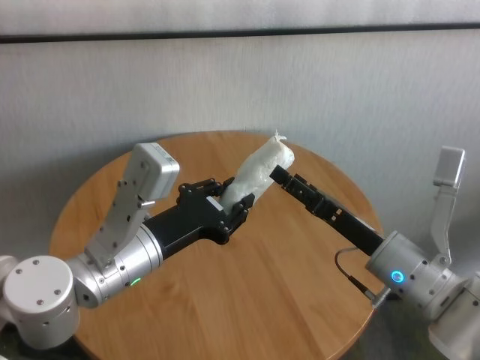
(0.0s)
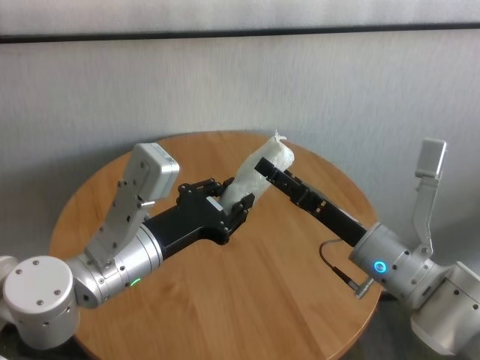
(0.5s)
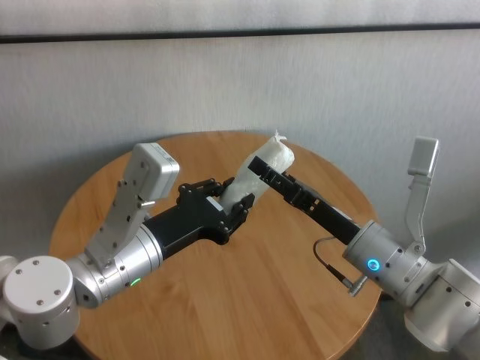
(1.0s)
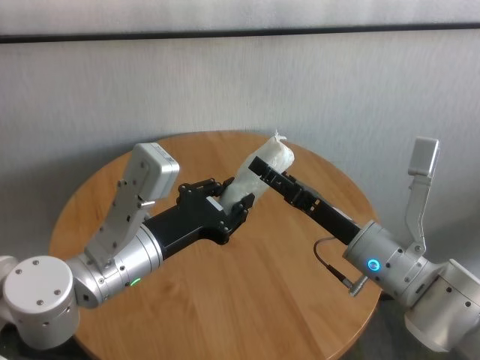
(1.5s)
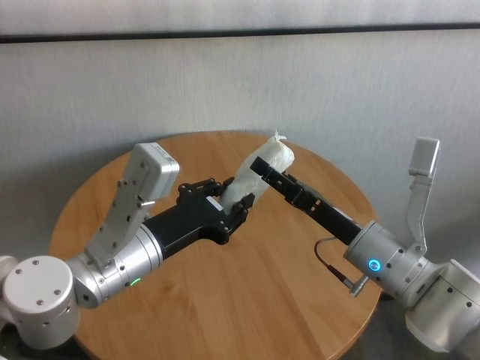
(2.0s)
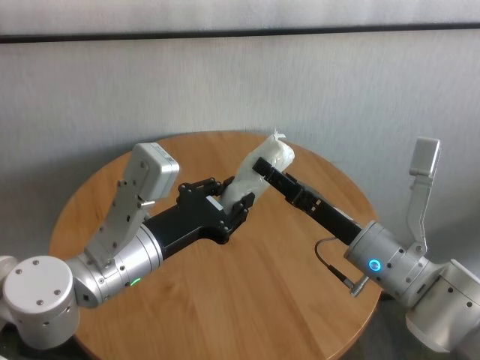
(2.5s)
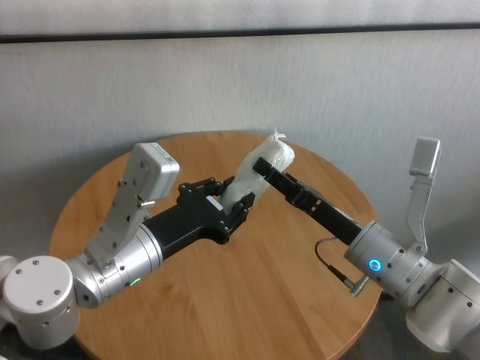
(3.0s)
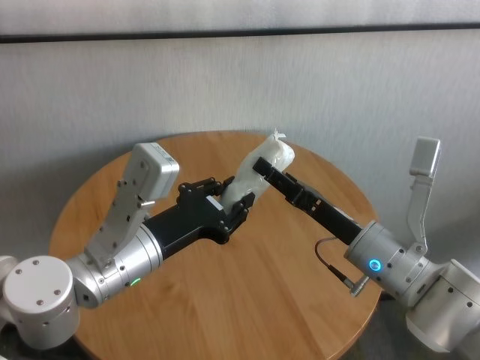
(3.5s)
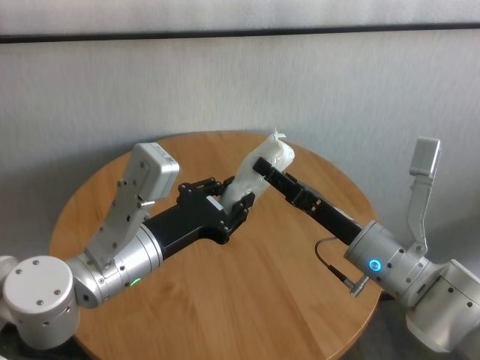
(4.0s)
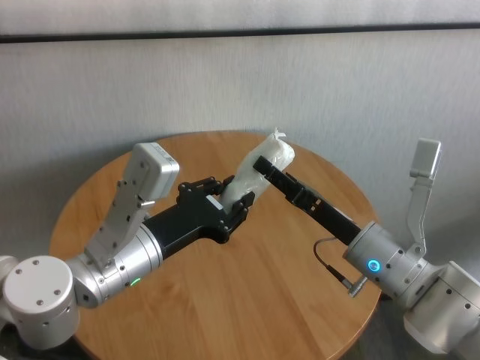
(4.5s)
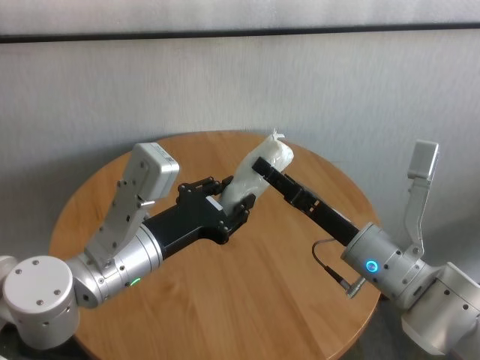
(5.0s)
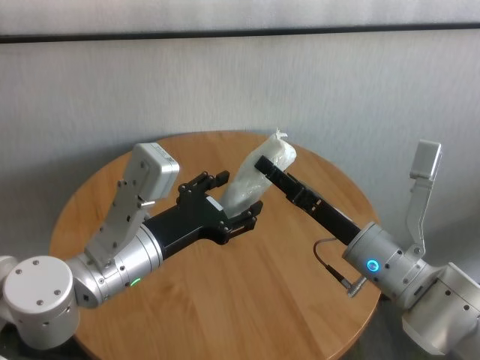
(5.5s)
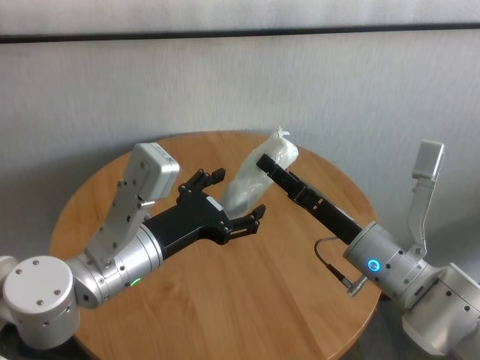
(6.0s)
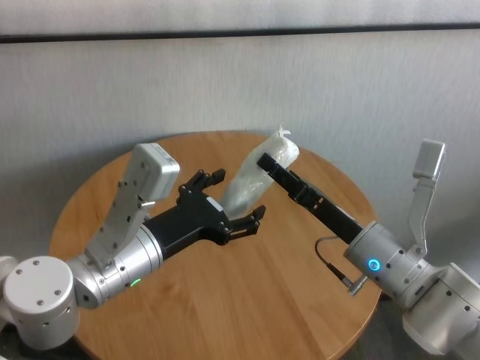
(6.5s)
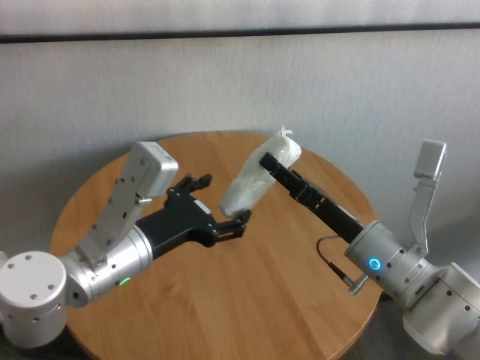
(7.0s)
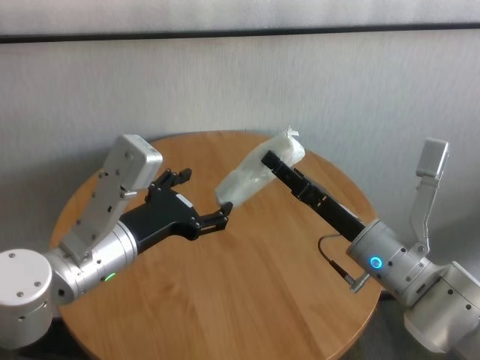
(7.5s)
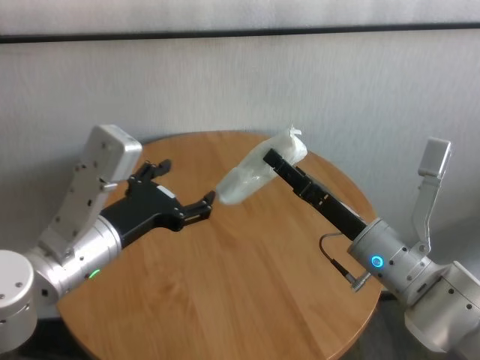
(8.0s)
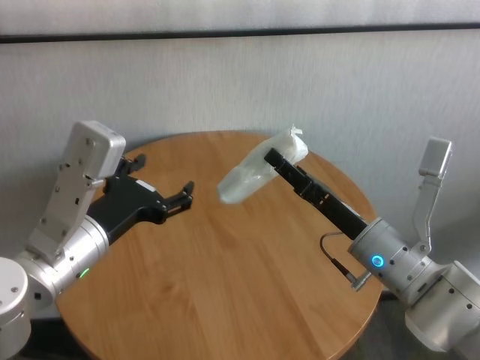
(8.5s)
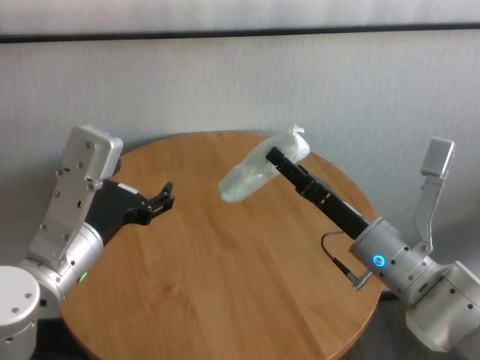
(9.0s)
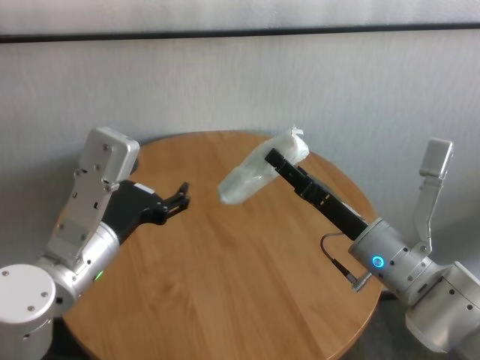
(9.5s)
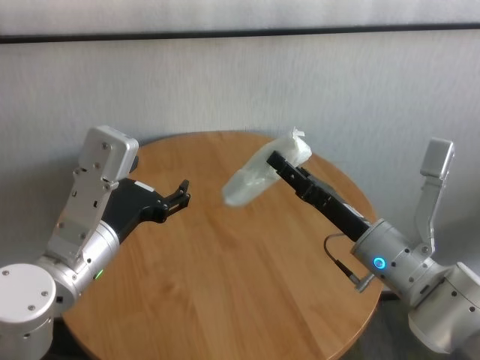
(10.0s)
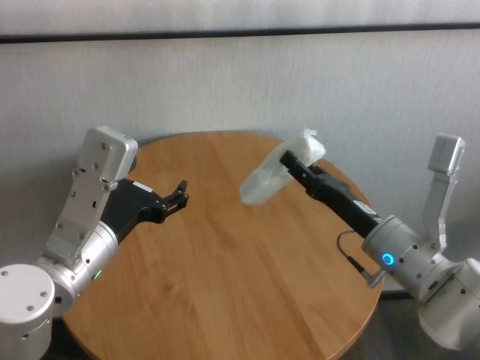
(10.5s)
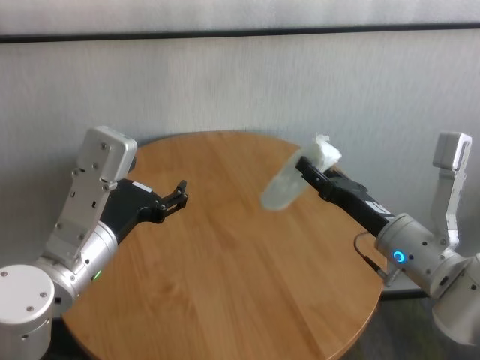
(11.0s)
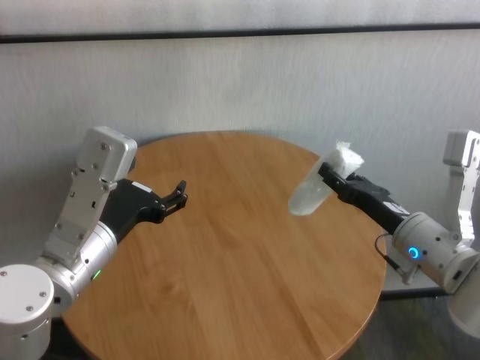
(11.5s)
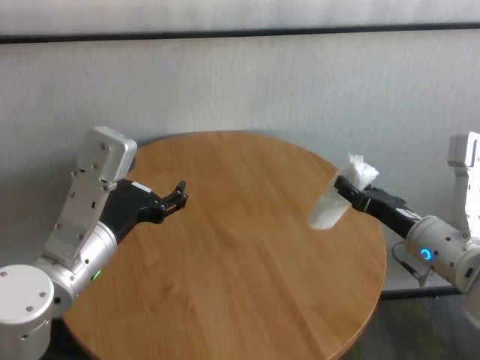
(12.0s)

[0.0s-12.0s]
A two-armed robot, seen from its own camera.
Task of the whole recording: One hand took the sandbag from the other hand and placed it on the table.
Step, 0.0s to 7.5s: Pass the paper ball to the right gripper.

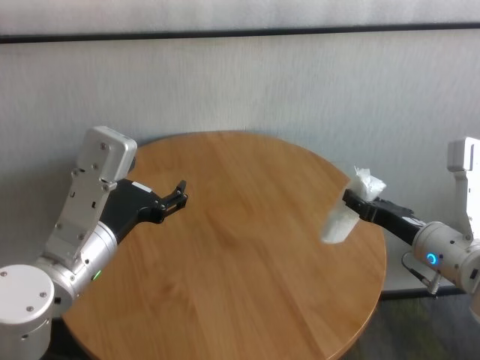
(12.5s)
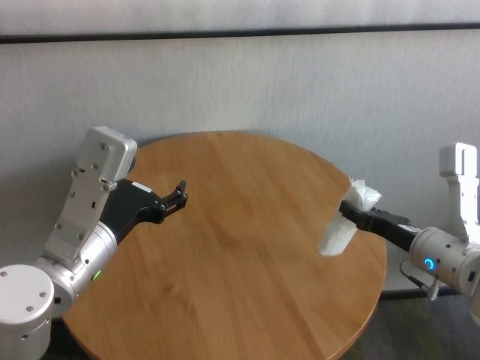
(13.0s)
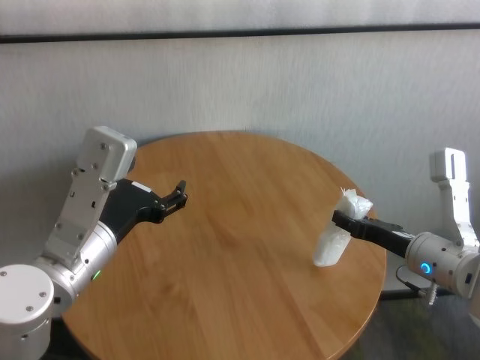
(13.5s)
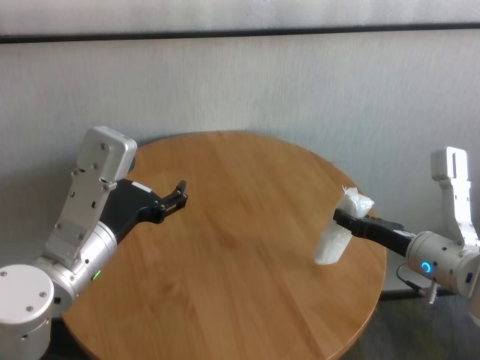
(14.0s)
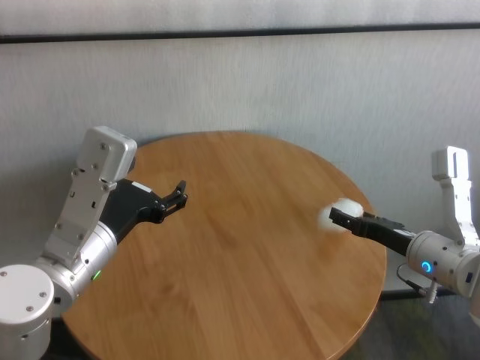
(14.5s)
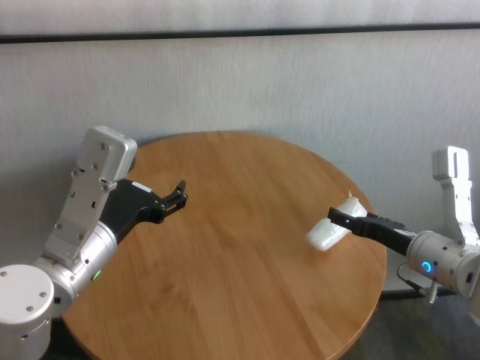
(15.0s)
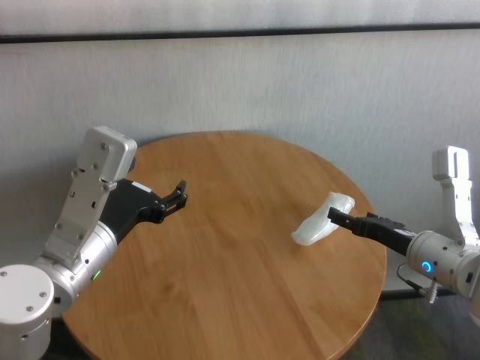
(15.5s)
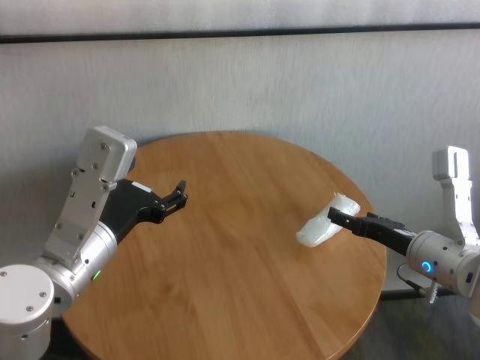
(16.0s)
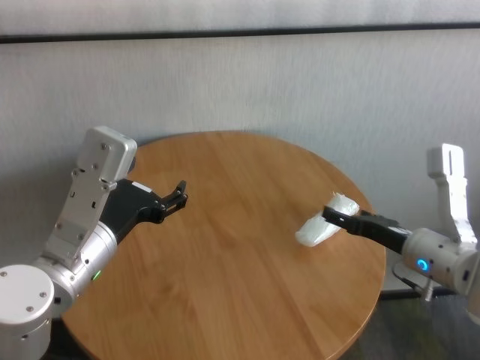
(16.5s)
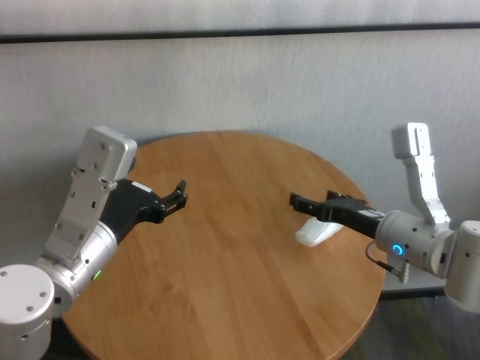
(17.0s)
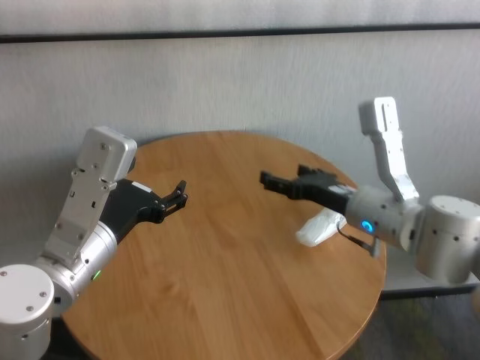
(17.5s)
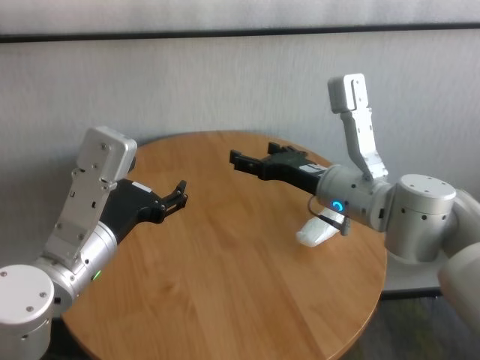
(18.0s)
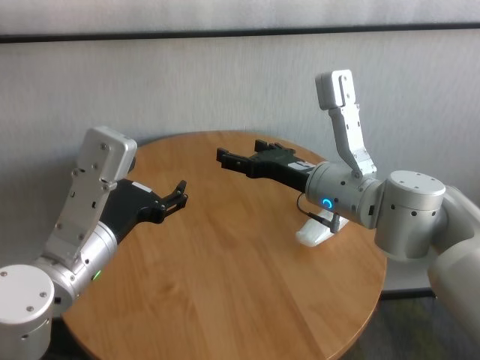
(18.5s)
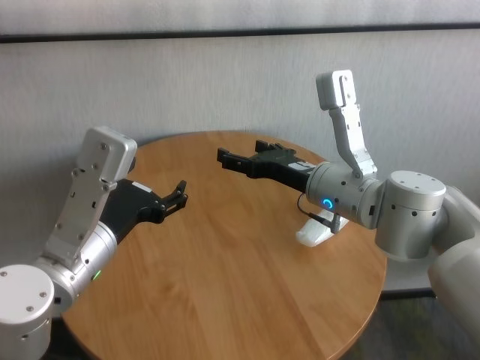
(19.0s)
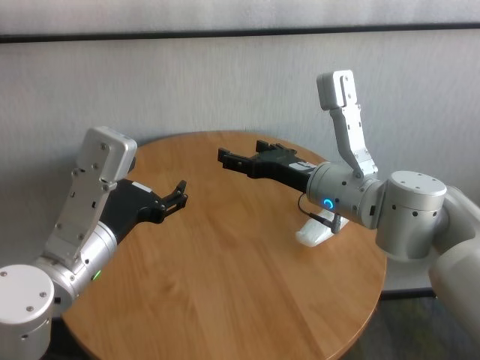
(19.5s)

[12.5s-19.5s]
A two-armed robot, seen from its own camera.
Task of the whole recording: One hand took the sandbag from the other hand and placed it on the table.
Step, 12.5s to 15.0s: Place the paper ball on the table with right gripper.

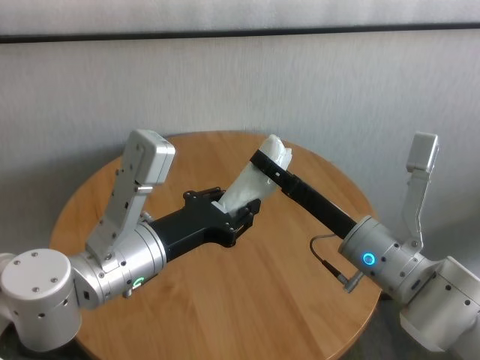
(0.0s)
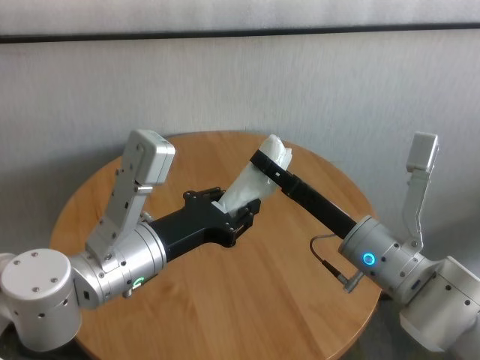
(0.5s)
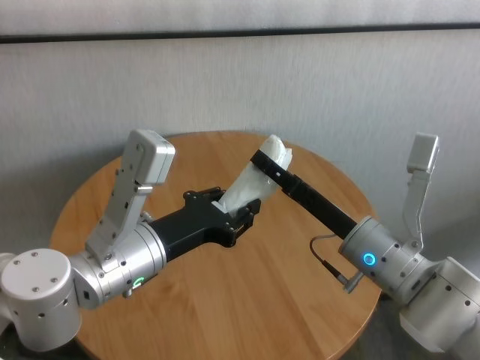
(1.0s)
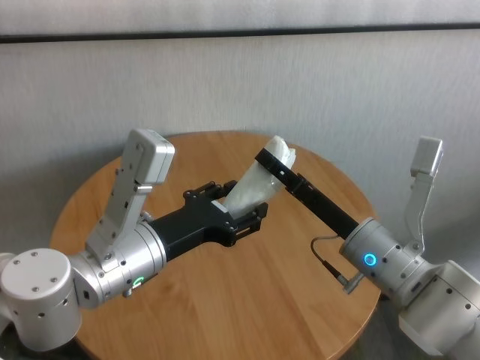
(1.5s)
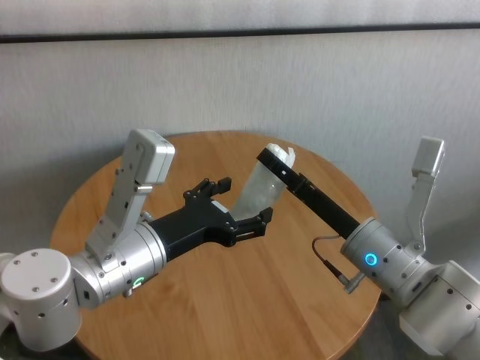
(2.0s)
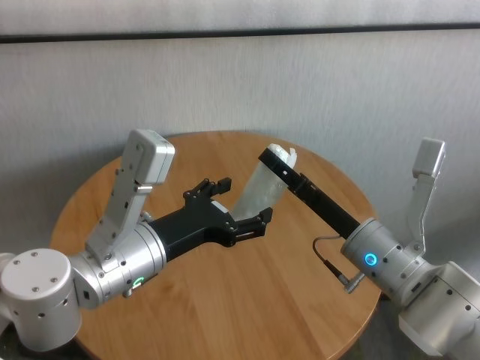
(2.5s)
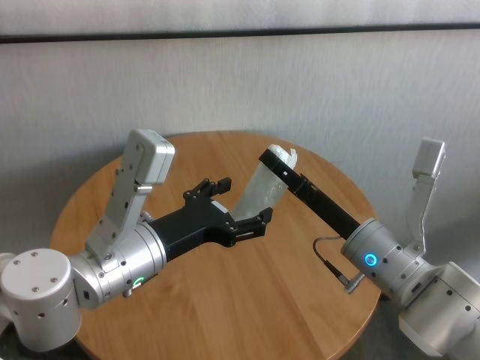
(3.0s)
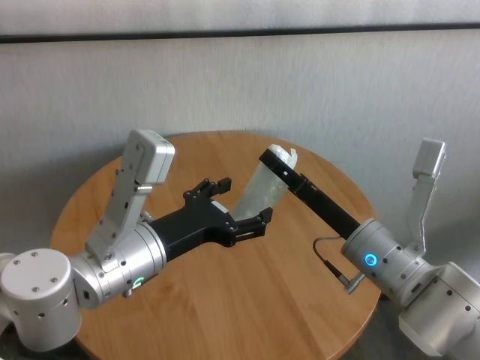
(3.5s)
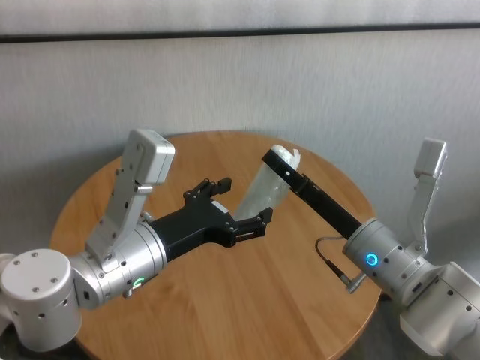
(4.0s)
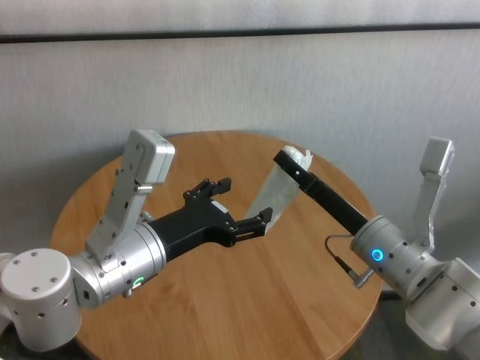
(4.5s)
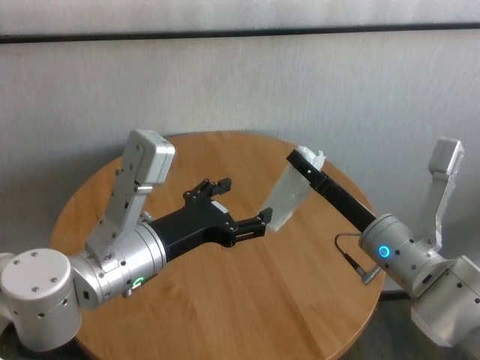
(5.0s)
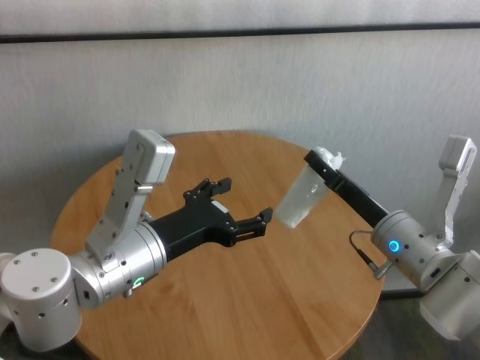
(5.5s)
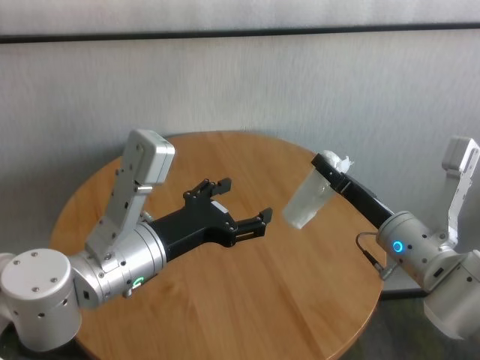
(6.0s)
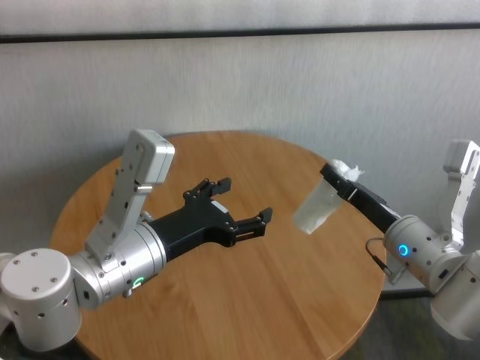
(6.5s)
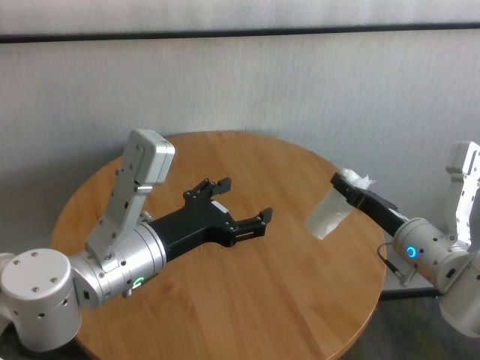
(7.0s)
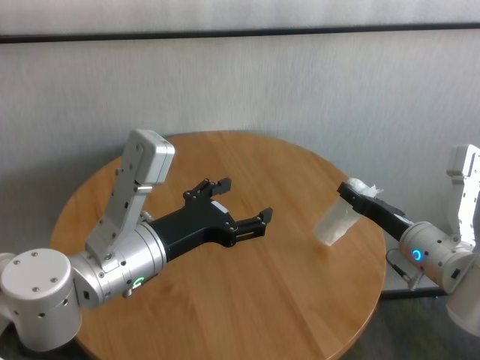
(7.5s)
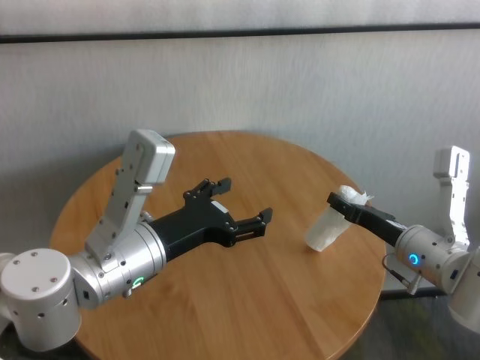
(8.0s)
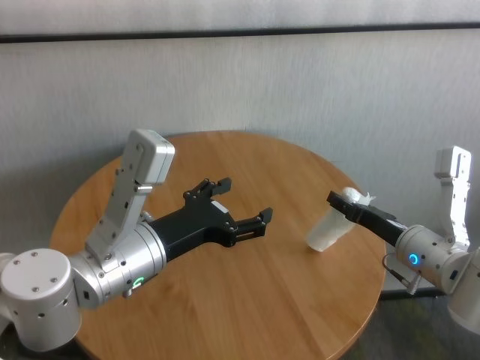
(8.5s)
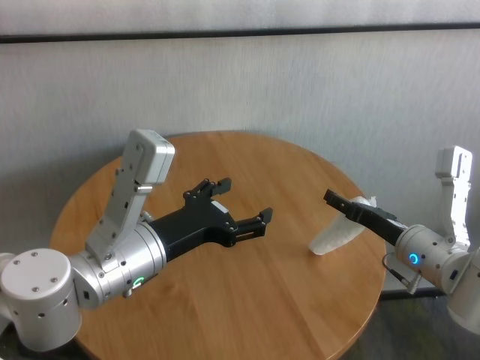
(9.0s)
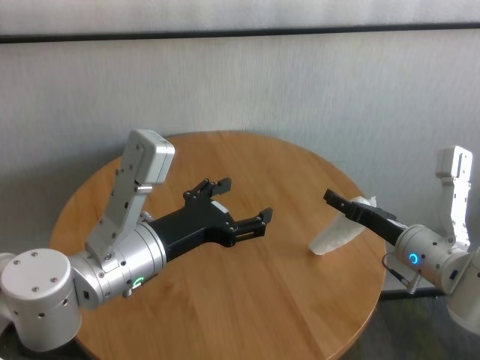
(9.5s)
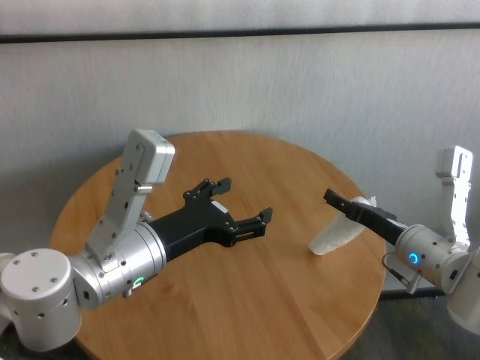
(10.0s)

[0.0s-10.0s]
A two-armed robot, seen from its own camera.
Task of the whole recording: One hand took the sandbag from the other hand and placed it on the table.
Step, 0.0s to 4.0s: Pass the paper ball to the right gripper.
